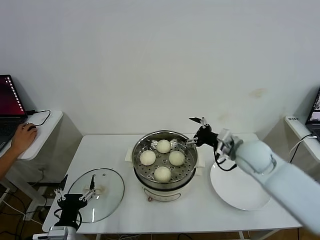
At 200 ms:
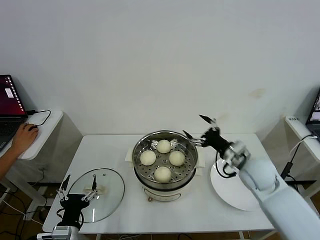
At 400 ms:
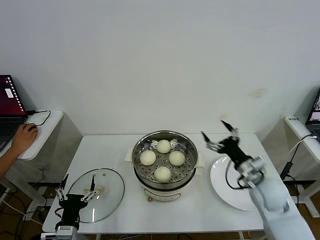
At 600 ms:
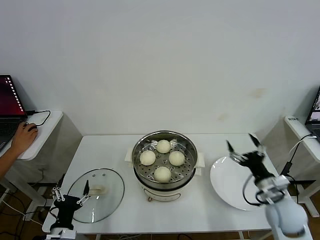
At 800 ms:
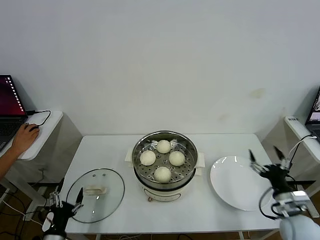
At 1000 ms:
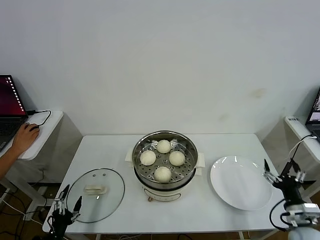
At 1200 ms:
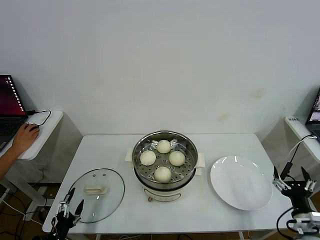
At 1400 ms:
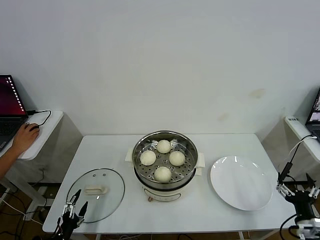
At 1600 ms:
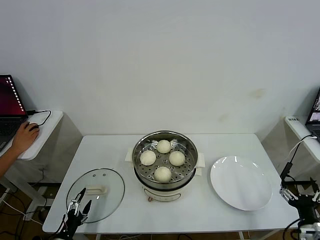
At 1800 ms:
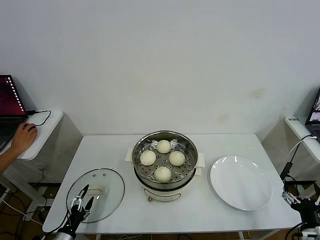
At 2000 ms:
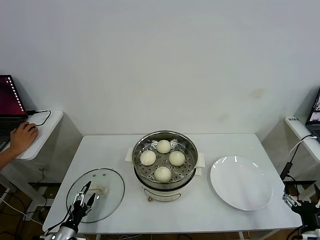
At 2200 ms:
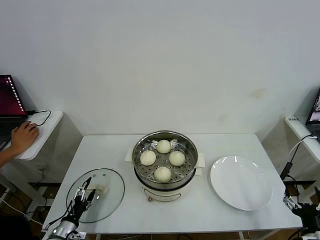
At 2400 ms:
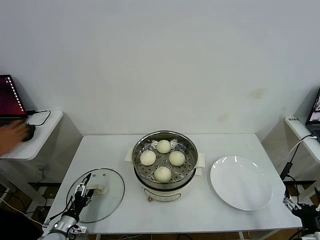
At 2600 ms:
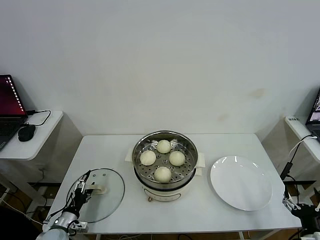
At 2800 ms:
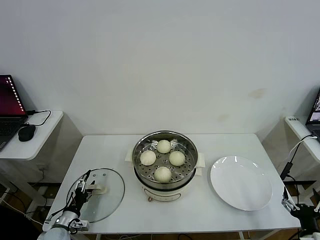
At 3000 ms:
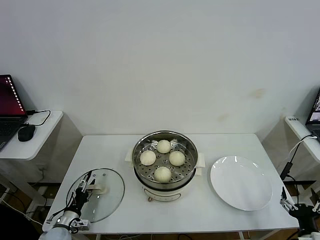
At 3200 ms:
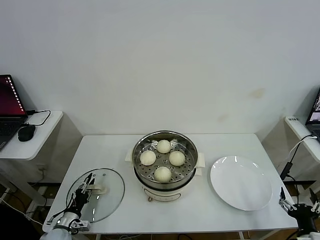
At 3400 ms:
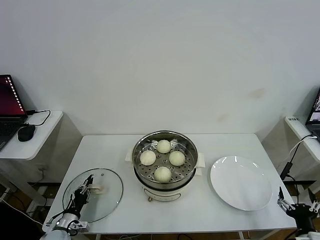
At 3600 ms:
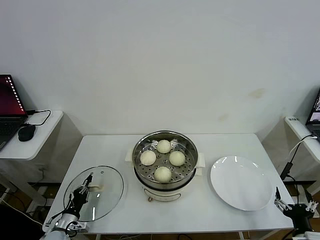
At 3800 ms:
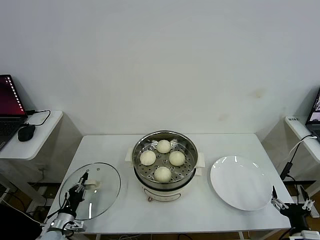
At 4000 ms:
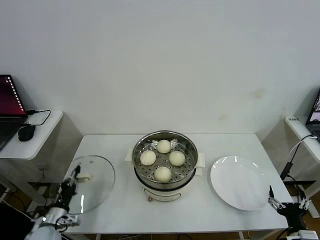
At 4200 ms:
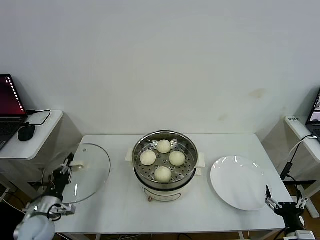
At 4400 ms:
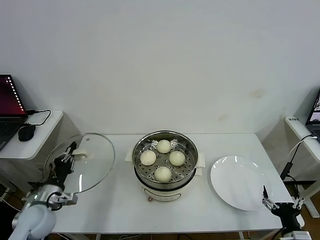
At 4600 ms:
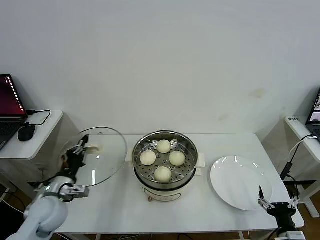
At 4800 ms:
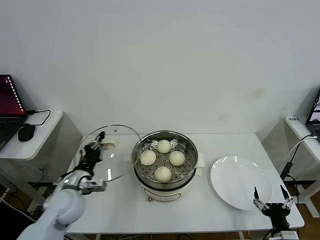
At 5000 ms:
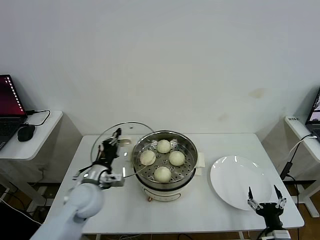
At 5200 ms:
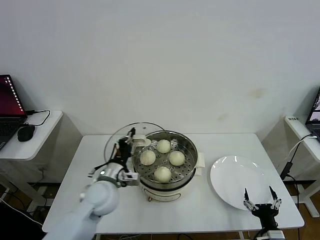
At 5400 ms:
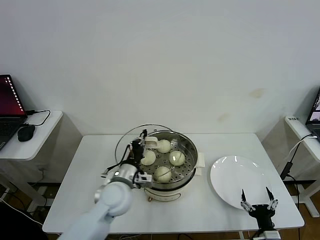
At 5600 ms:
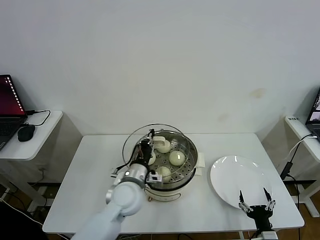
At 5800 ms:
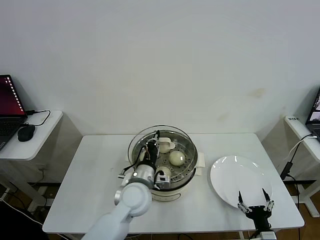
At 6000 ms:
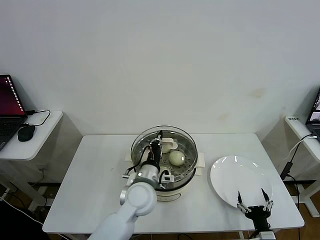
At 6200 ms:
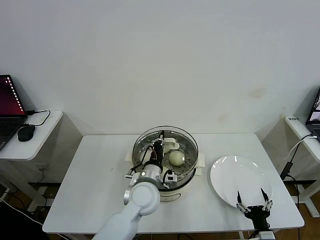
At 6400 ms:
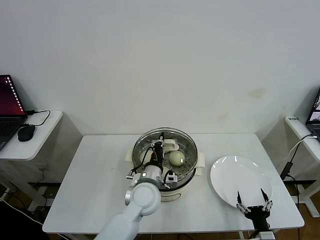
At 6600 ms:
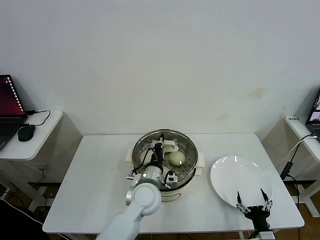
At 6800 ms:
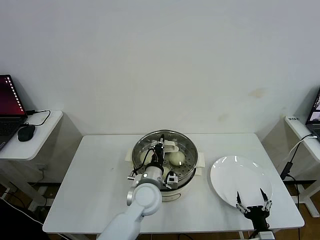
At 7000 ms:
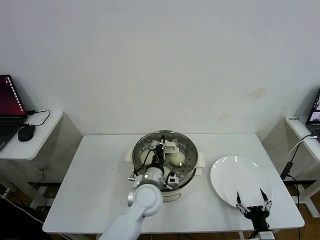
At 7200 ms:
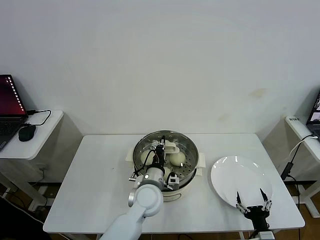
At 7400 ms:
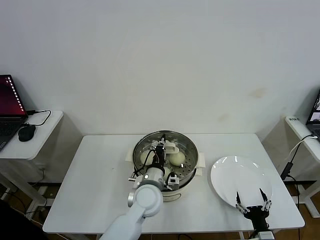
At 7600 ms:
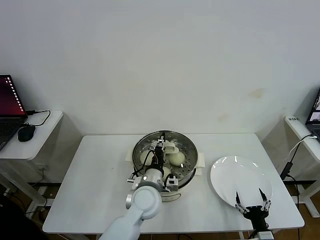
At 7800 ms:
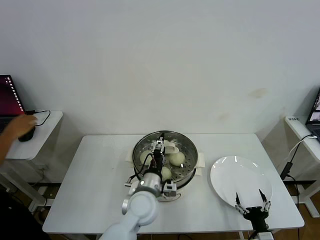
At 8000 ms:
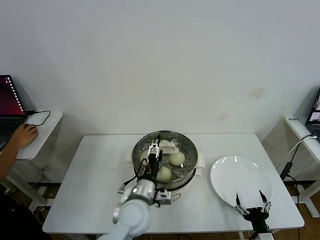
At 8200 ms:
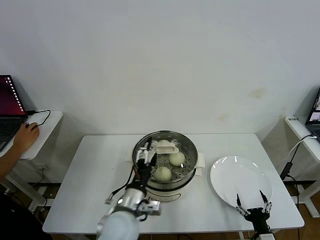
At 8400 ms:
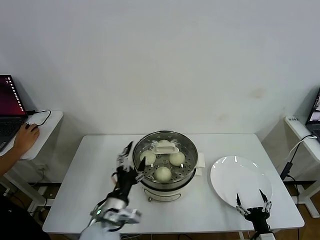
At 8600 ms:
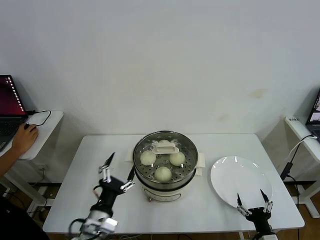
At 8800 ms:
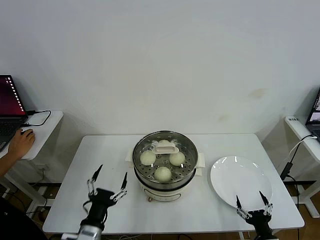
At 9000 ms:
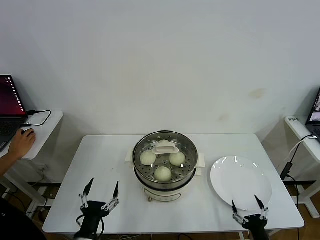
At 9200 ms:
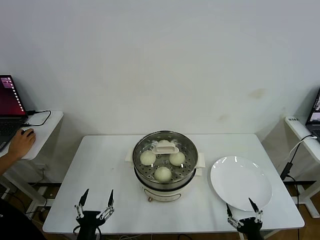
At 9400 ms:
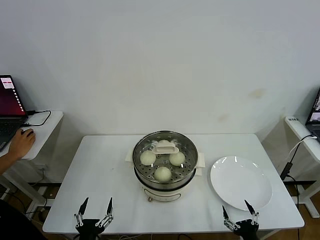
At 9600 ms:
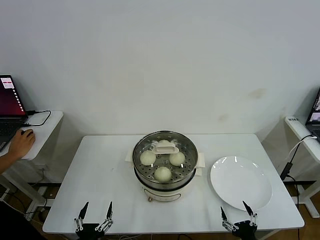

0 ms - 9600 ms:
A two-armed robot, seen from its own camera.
Step, 0 ms - 3600 ms: Grasp the pot lid with left gripper.
Step, 3800 ms - 7800 ms: Place the pot lid on the steamer with left gripper.
0 ms - 1600 ms: The left gripper travels downward and to the left by approximately 15 cm. Meanwhile the right gripper goes approximately 35 cm backward, to the right and downward.
1600 ms - 3200 ms: The left gripper heads forward, covering about 10 cm, and closes up.
3200 ms - 4800 ms: The right gripper shifts approximately 5 cm to the left, while the left gripper heads upward and to the right, covering roughly 25 cm, and closes.
4800 ms - 6400 ms: The left gripper travels to the right by approximately 25 cm. Meanwhile the right gripper shifts by about 5 cm.
6400 ms - 8000 ms: The left gripper opens.
8000 ms - 9600 ms: The left gripper goes some 30 cm backward, to the left and downward. The right gripper moves approximately 5 cm.
